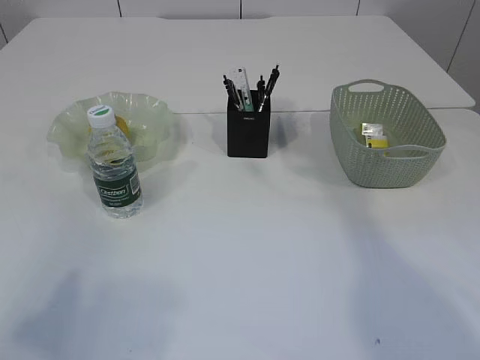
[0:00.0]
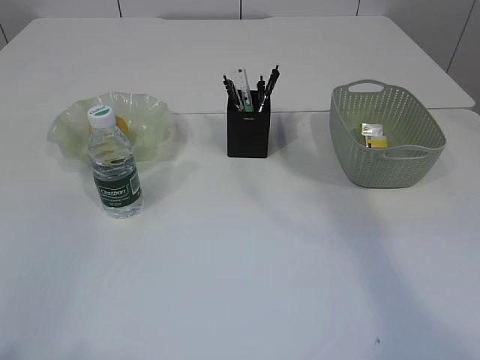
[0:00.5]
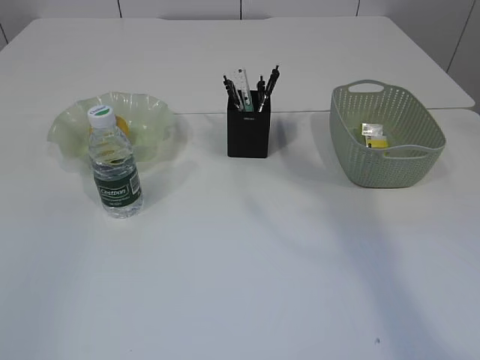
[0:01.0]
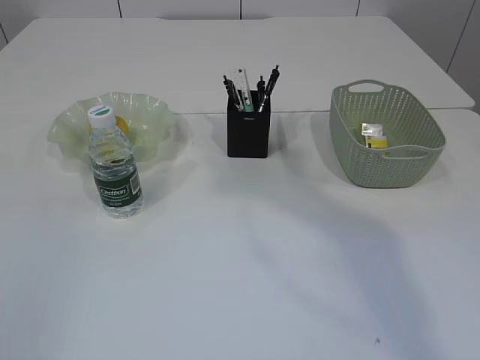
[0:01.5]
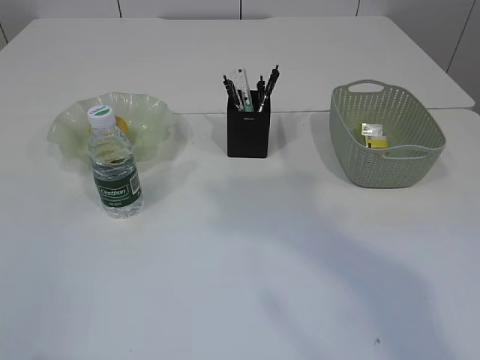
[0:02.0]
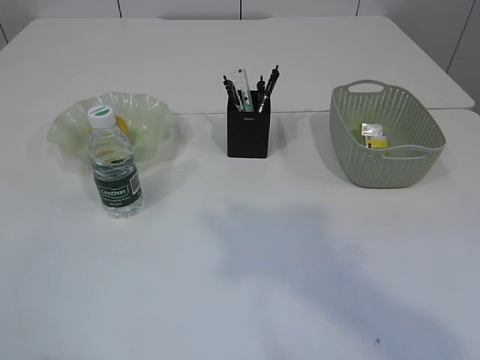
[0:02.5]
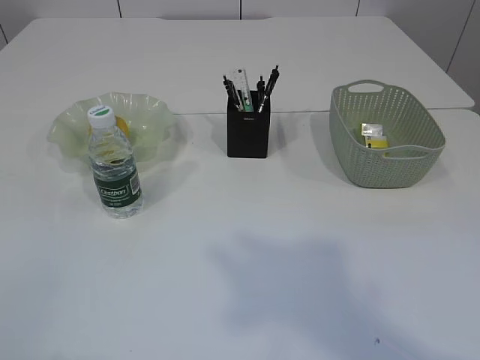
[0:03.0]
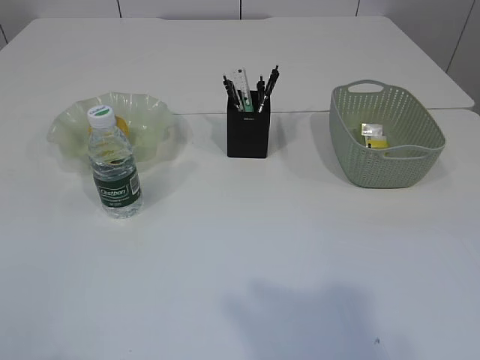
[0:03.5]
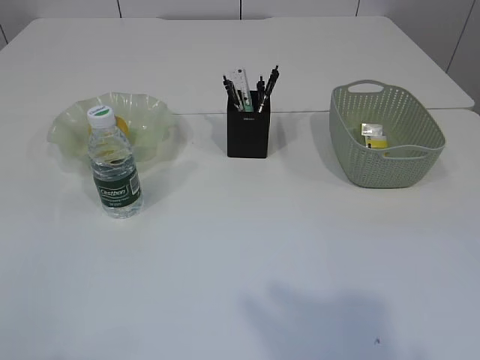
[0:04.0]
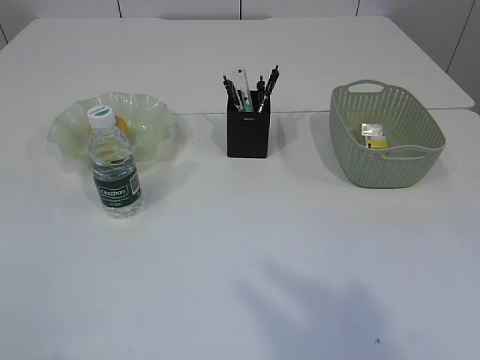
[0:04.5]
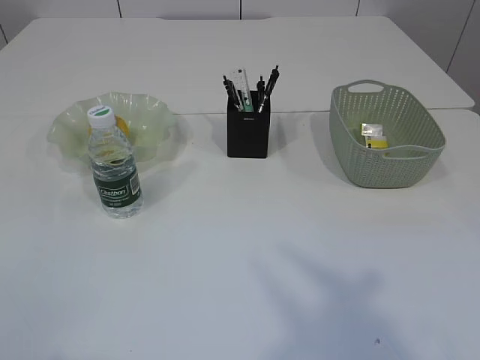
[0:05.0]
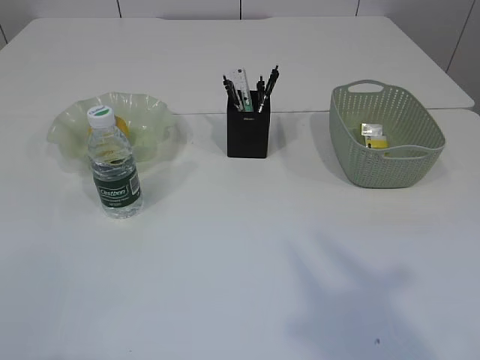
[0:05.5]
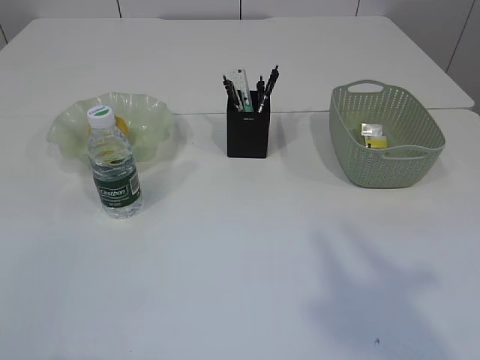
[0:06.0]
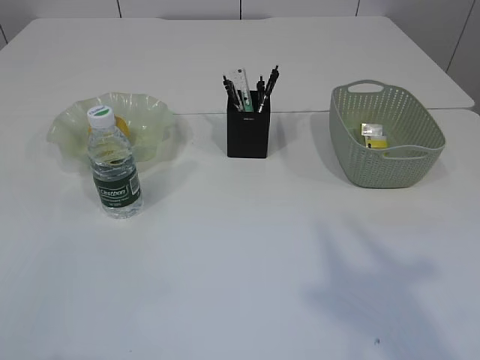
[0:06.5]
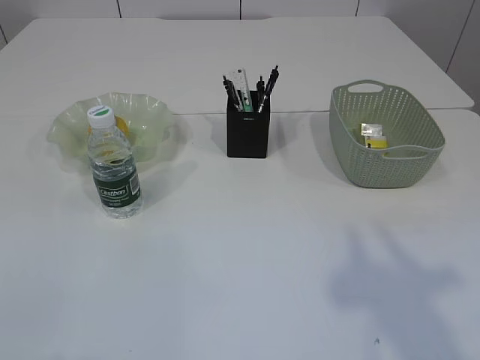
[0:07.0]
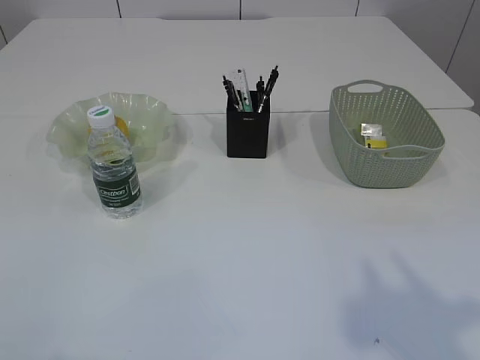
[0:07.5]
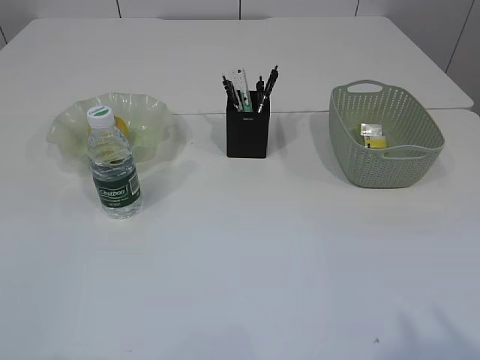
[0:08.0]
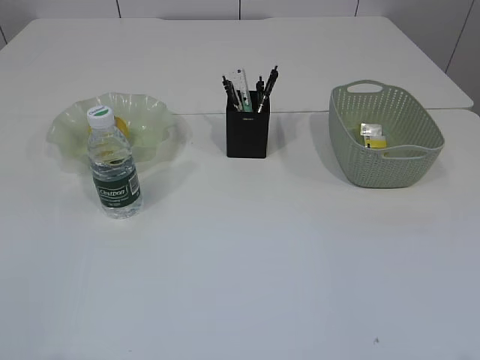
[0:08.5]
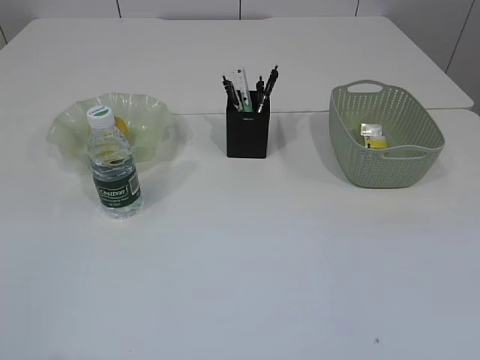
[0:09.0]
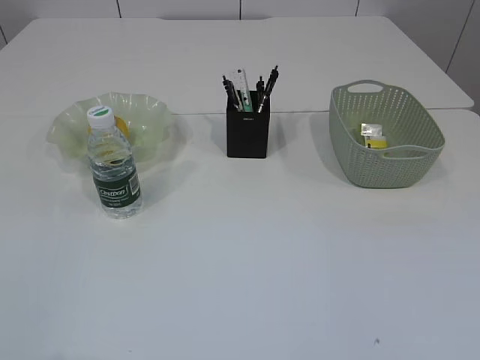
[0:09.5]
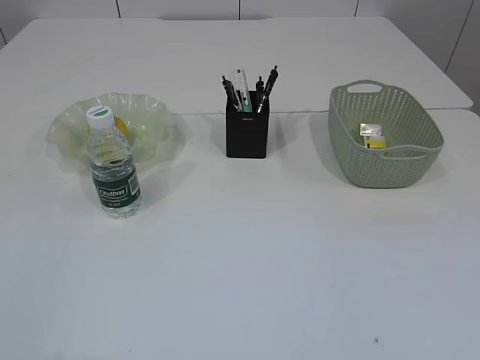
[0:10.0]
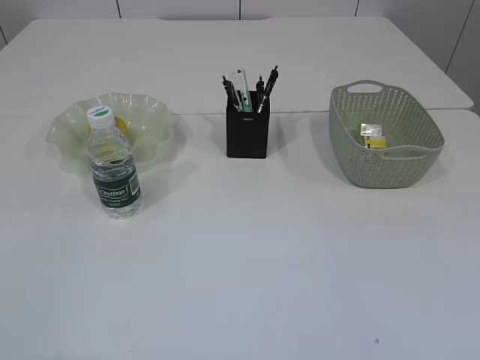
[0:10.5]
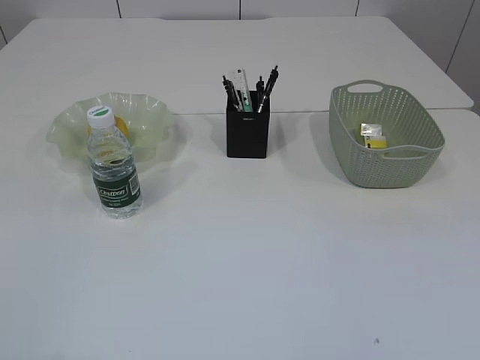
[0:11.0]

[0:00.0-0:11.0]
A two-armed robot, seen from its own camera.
0:00.0 to 0:02.0: The left gripper is displaced backward by approximately 5 cm; the right gripper goes about 20 cm backward.
